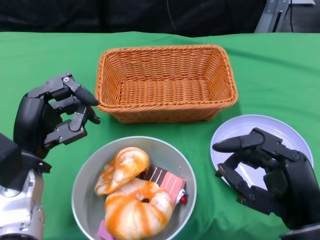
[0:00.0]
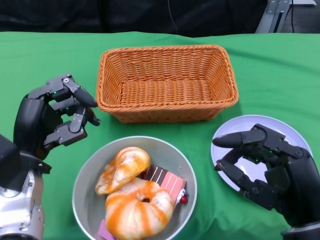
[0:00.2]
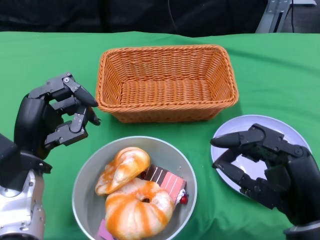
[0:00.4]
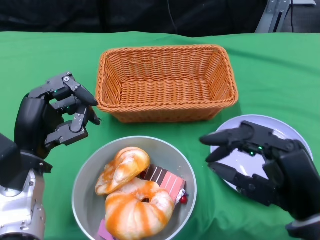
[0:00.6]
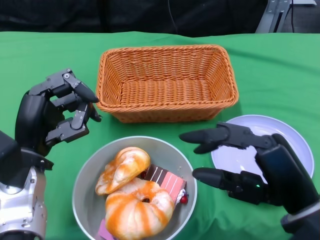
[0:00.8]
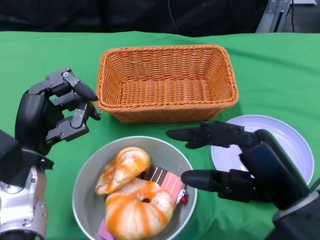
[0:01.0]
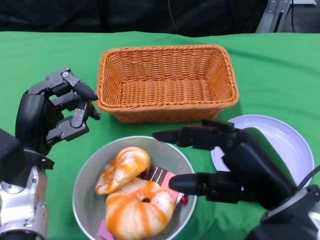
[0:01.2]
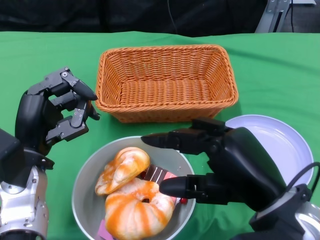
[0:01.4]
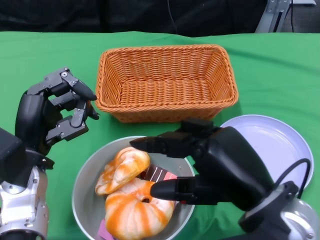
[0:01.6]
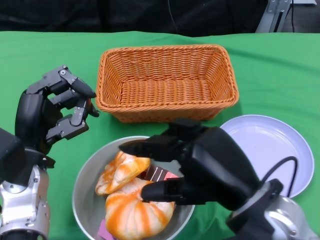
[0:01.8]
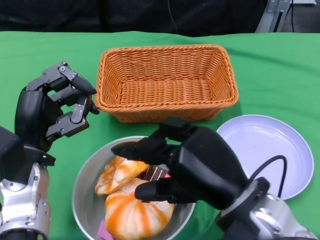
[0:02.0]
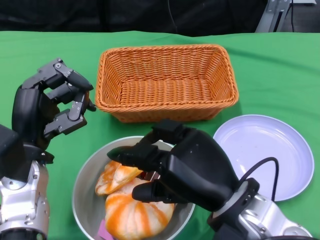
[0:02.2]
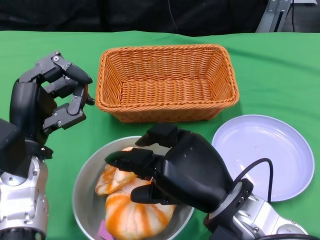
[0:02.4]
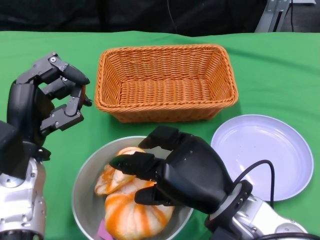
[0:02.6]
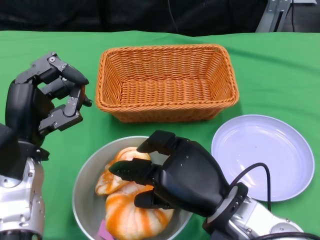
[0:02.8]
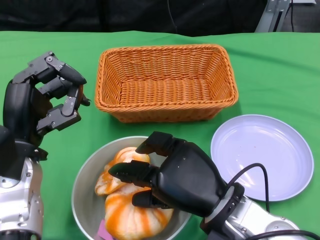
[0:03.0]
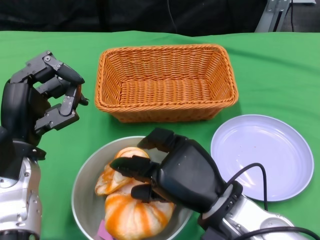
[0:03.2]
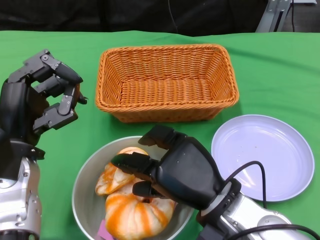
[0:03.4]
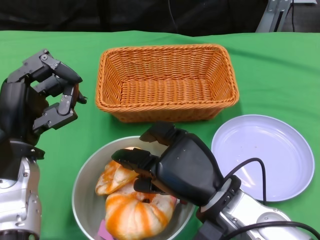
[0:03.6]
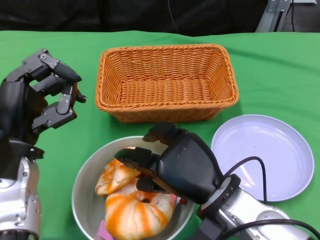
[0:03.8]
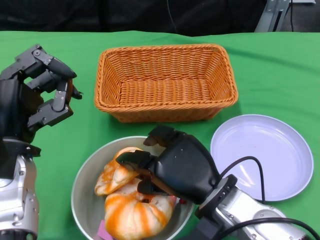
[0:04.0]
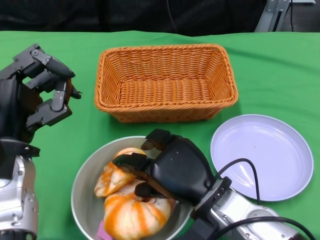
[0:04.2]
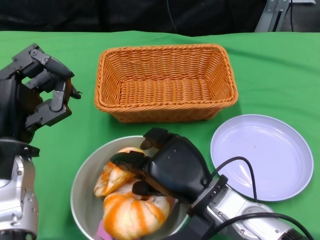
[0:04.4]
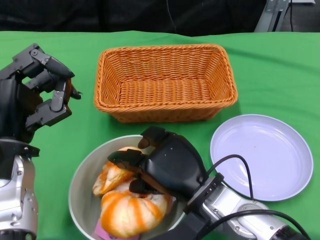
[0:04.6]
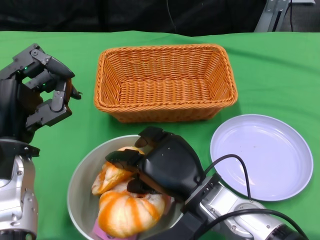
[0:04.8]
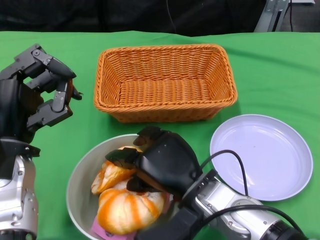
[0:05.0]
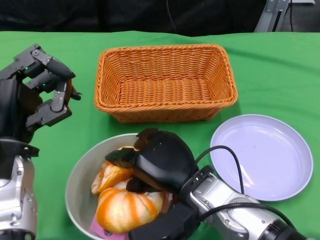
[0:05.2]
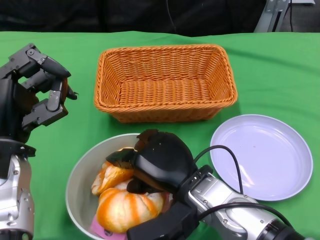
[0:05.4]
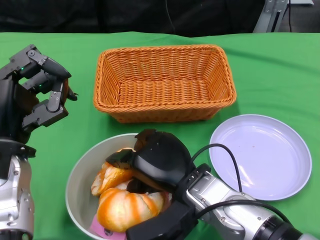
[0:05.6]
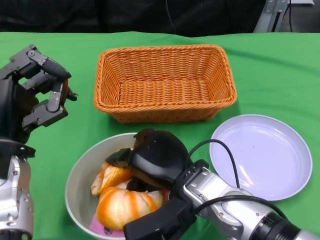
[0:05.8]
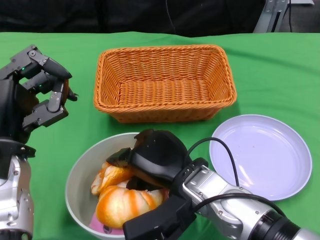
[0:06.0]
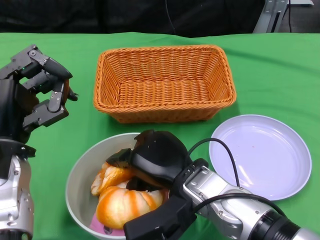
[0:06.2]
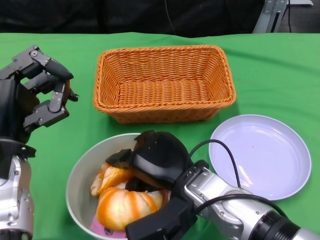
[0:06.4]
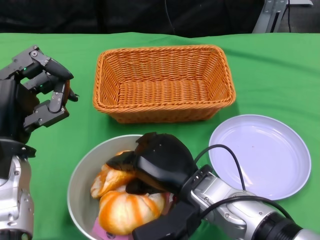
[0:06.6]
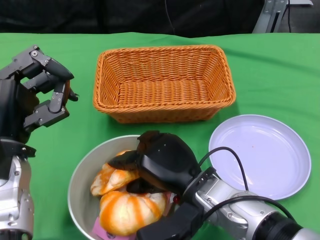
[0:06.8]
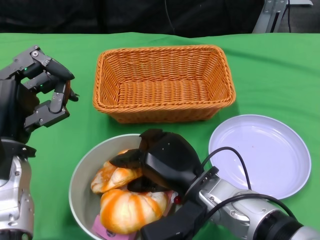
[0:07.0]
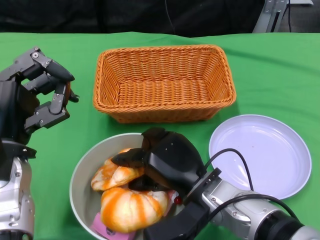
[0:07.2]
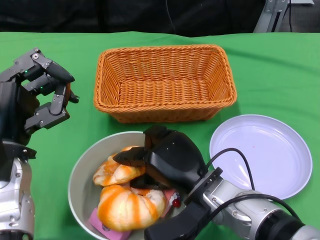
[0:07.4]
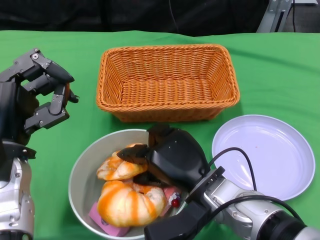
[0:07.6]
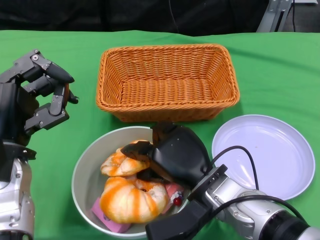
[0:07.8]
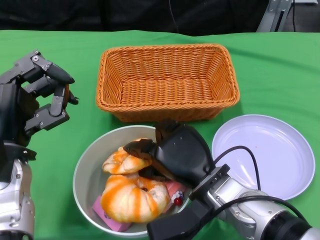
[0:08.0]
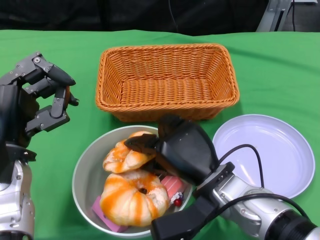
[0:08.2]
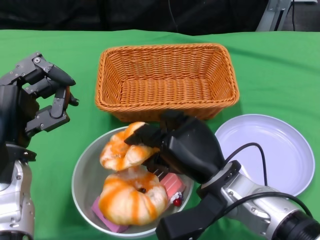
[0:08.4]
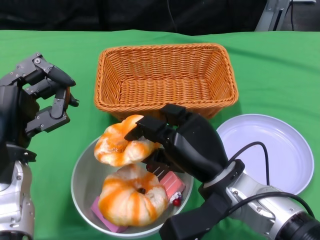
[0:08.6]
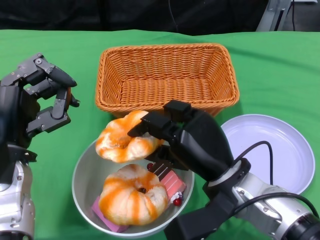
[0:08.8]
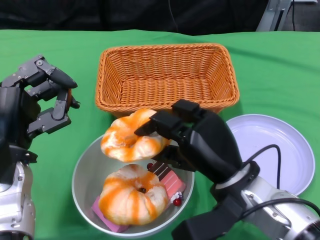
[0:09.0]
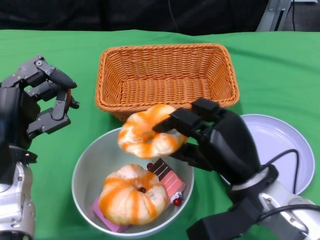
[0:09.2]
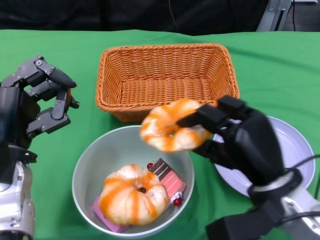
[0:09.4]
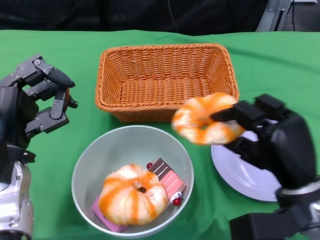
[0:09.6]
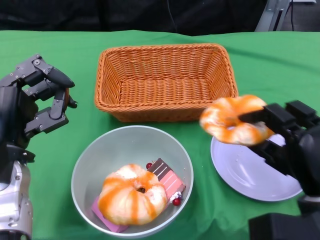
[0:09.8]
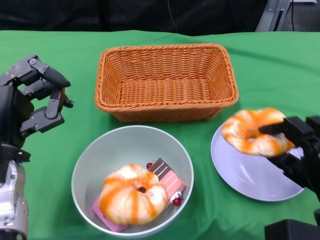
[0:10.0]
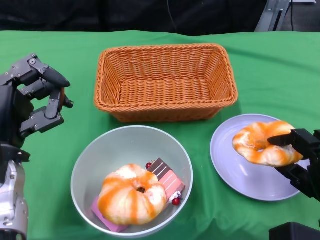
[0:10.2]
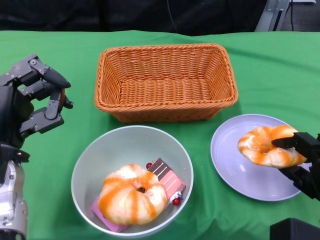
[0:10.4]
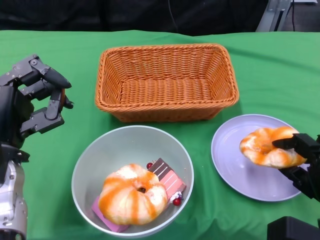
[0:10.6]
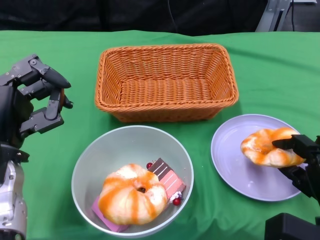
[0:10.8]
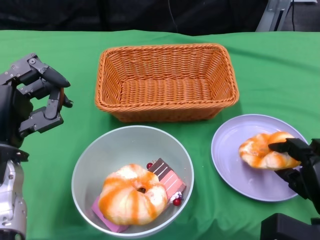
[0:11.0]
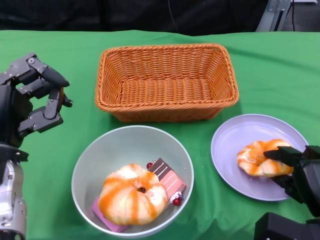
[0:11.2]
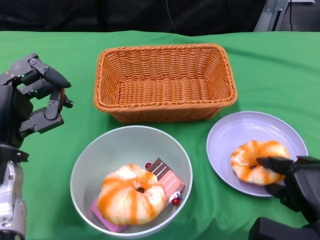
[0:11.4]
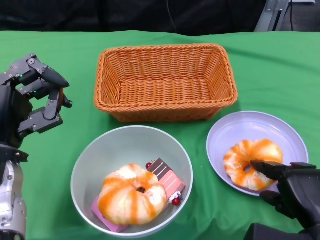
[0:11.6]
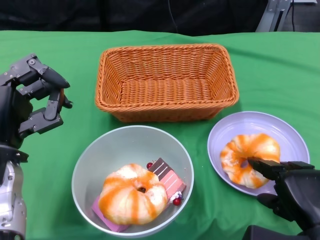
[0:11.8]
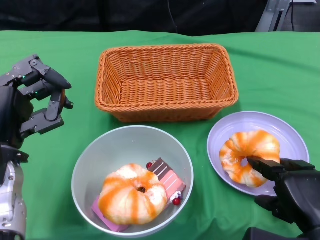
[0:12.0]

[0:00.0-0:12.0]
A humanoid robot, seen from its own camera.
0:00.0 to 0:01.6: The right hand goes approximately 5 cm upward.
0:01.6 to 0:03.0: The right hand heads downward, covering some 5 cm.
0:09.0 to 0:10.4: The right hand shifts about 15 cm to the right.

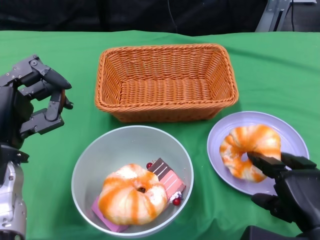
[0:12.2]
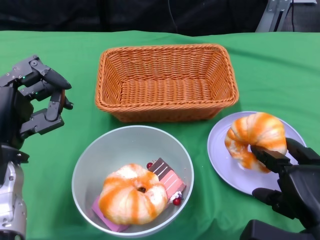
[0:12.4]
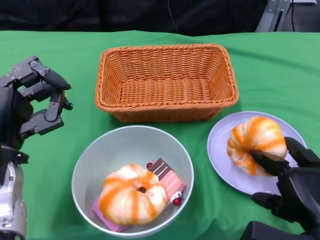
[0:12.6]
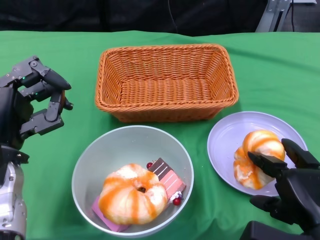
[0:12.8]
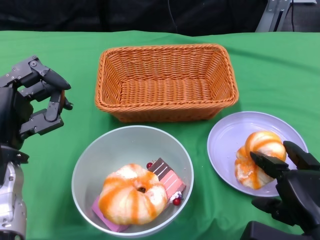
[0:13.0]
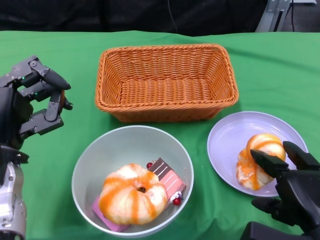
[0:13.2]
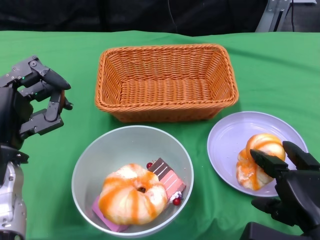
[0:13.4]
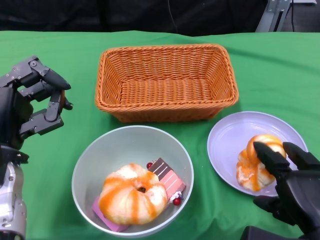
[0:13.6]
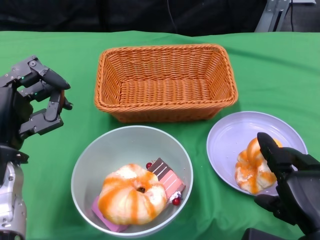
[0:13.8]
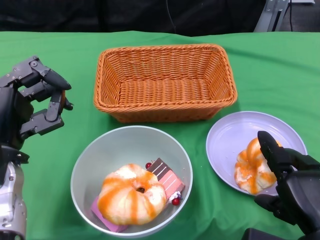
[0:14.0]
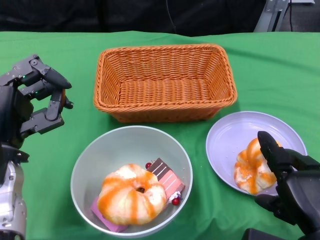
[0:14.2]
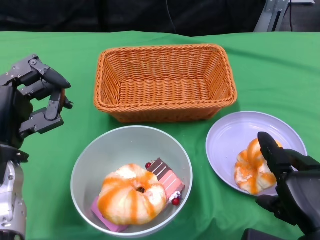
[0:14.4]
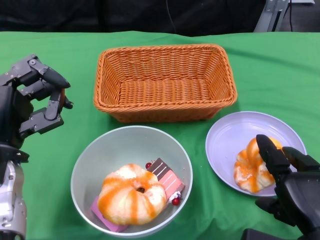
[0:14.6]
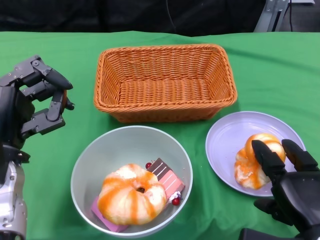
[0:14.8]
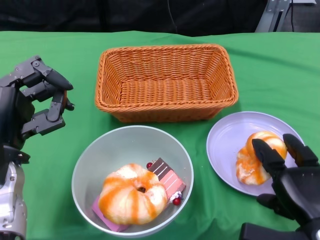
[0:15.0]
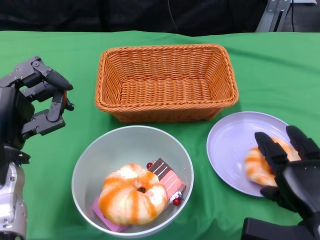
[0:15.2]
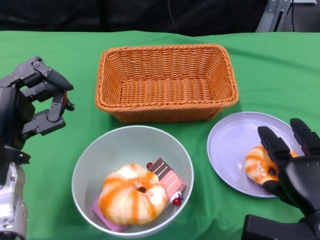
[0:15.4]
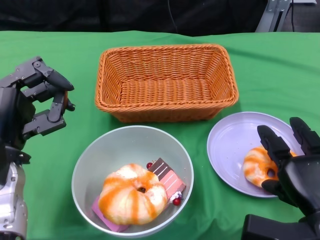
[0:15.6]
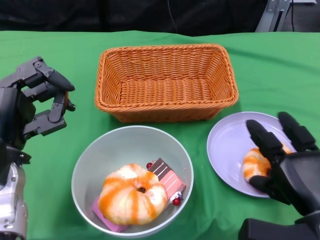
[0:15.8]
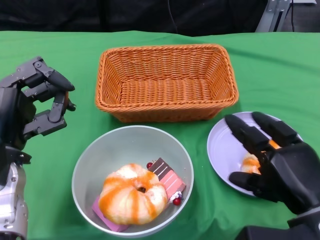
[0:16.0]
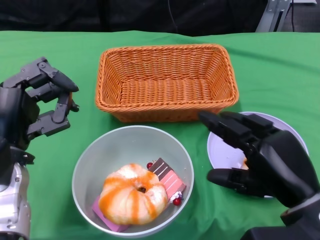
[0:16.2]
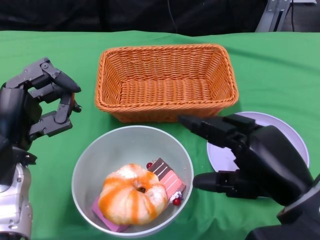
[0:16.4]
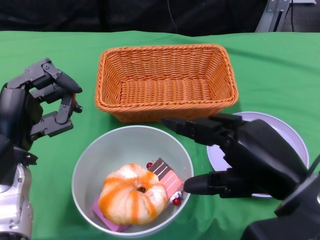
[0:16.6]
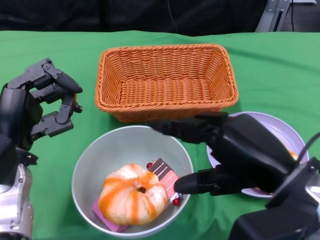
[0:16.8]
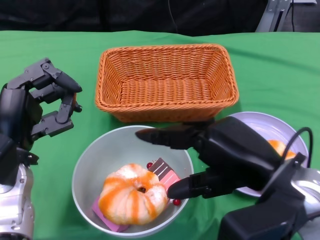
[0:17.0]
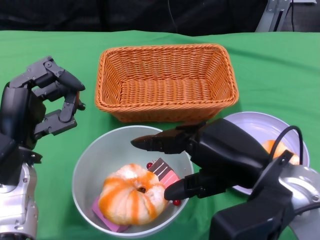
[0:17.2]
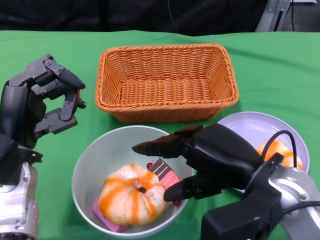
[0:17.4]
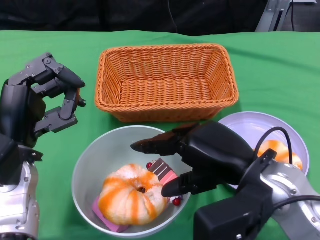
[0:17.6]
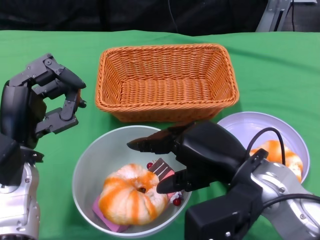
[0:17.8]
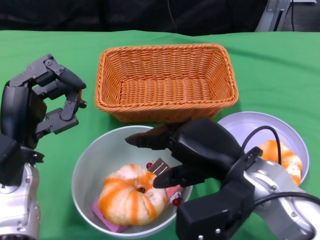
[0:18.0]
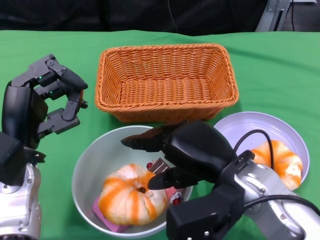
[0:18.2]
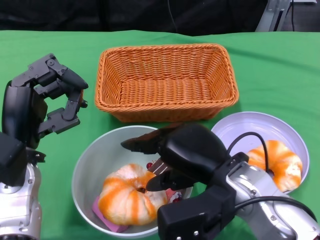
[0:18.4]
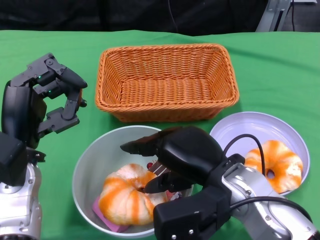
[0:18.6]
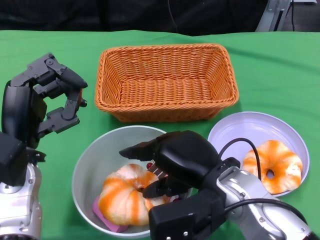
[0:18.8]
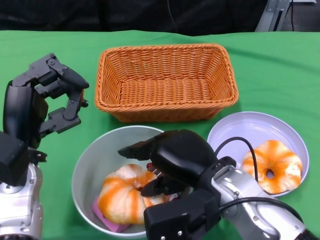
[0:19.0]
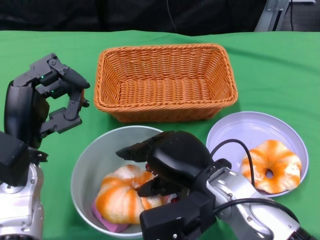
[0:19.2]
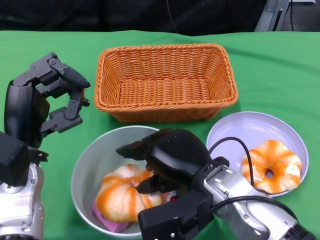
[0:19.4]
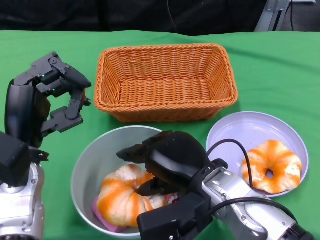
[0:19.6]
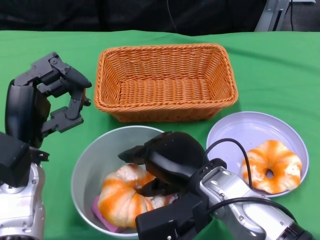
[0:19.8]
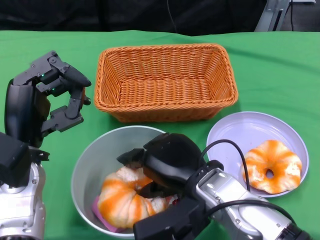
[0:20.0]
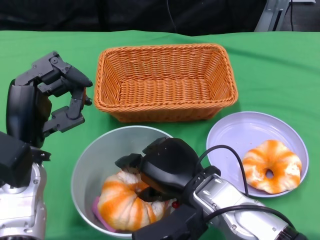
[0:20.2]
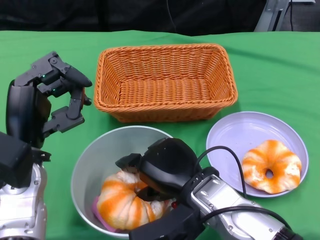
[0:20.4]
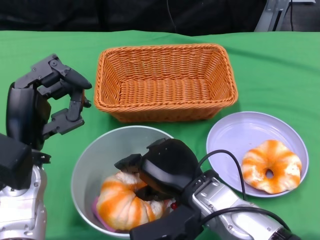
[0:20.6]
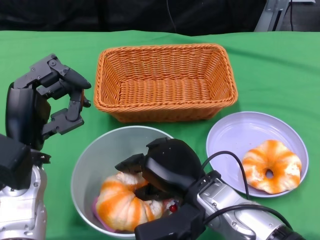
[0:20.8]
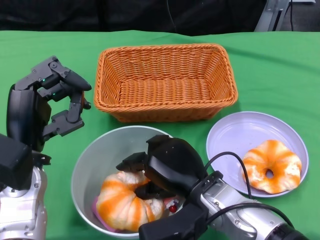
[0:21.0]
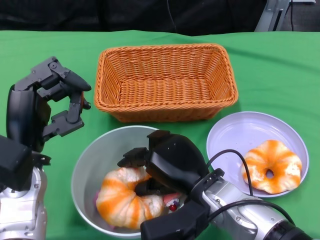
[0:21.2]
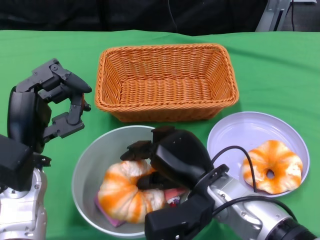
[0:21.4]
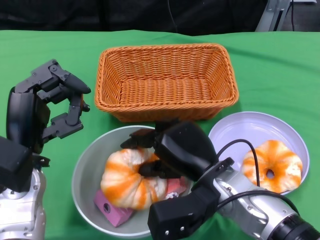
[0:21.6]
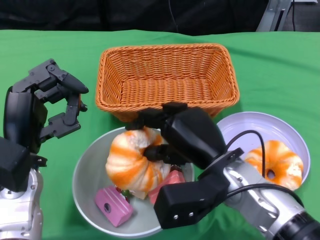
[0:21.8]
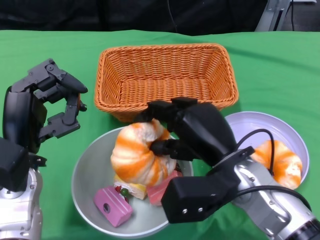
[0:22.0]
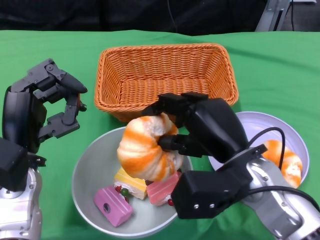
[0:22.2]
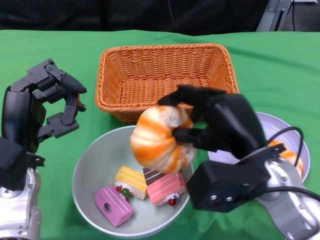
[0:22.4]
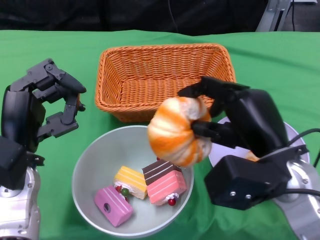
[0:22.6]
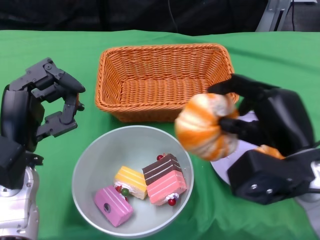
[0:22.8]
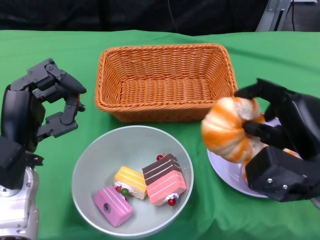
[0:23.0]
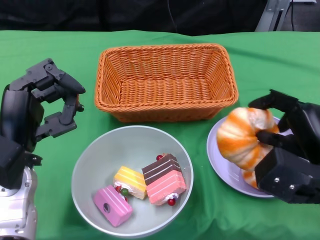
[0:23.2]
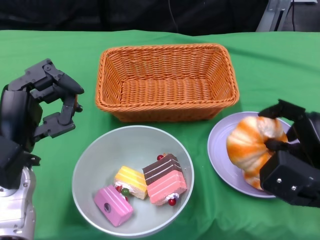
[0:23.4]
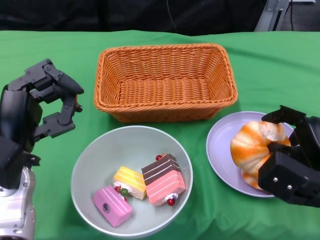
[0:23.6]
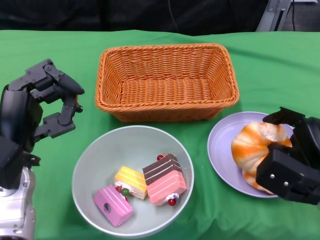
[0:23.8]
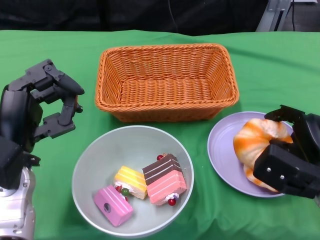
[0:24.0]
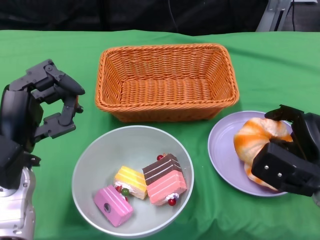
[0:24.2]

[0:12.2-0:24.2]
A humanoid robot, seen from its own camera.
Step, 0:12.2 to 0:16.0: Pick up the bread with the right gripper and place it on the plate.
0:12.2 to 0:15.2: The hands stay close to where they were, moving slightly.
0:15.2 to 0:16.6: The right hand shifts some 10 cm upward.
0:16.6 to 0:18.2: The right hand is displaced to the left by roughly 5 cm.
0:19.8 to 0:21.2: The hands stay close to where they were, moving slightly.
0:21.2 to 0:22.6: The right hand shifts approximately 10 cm to the right and upward.
0:22.6 to 0:24.2: The right hand travels downward and to the right by about 10 cm.
